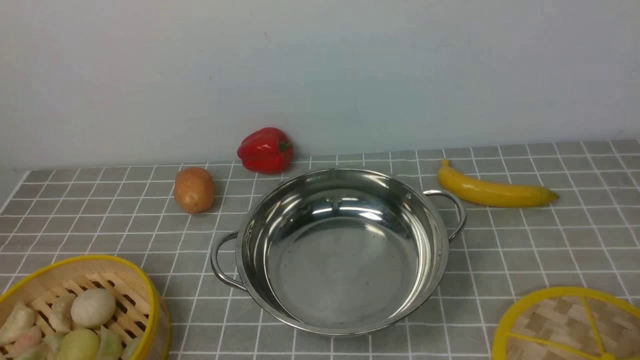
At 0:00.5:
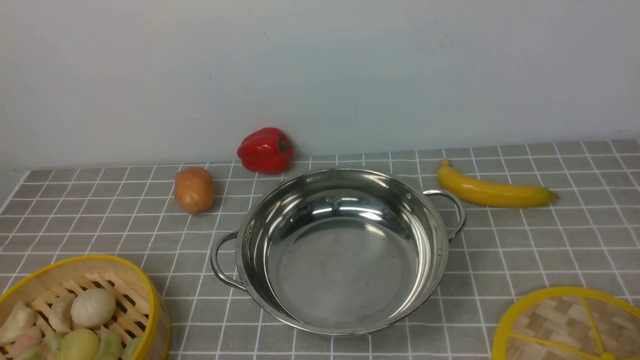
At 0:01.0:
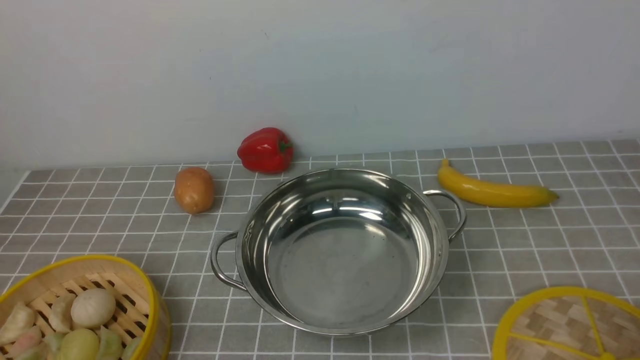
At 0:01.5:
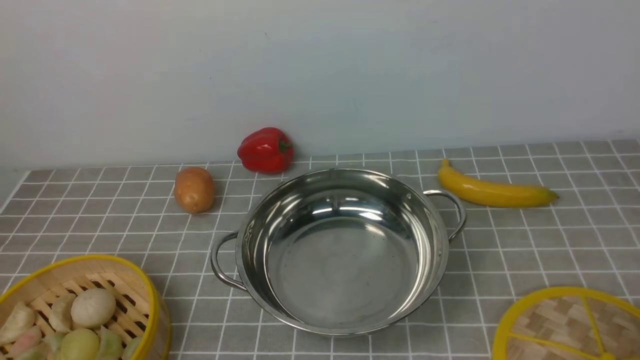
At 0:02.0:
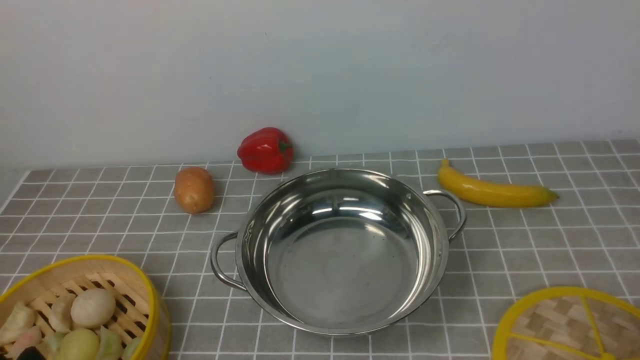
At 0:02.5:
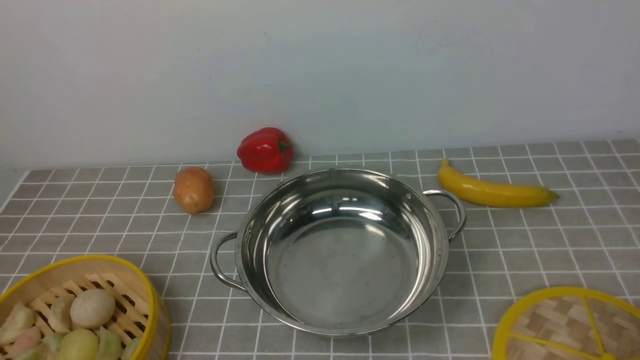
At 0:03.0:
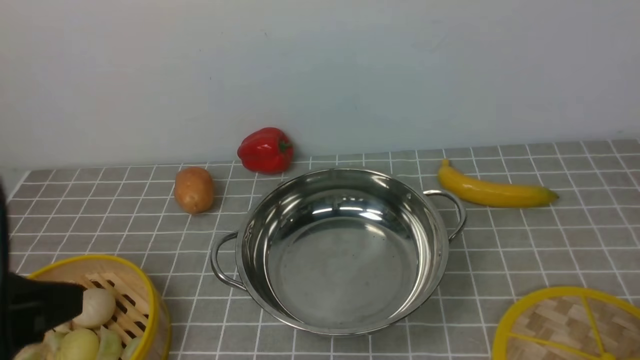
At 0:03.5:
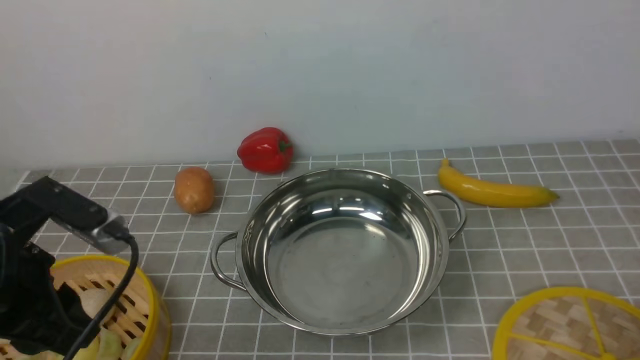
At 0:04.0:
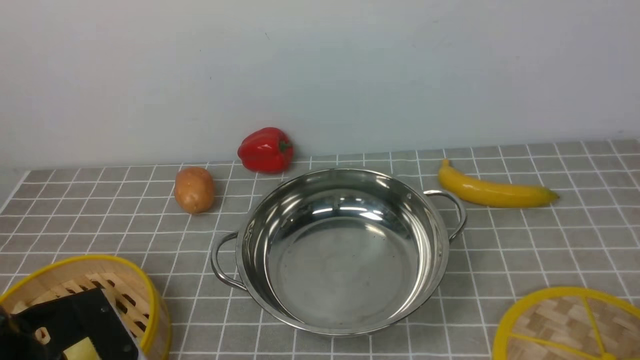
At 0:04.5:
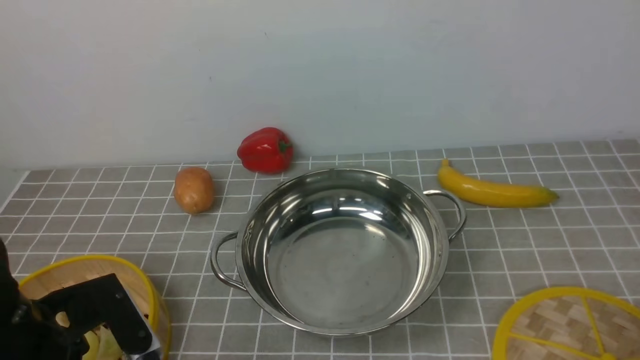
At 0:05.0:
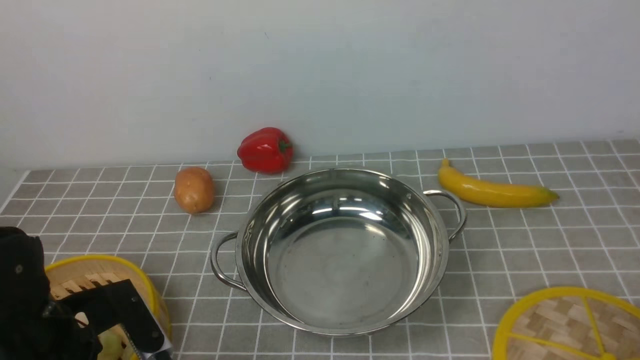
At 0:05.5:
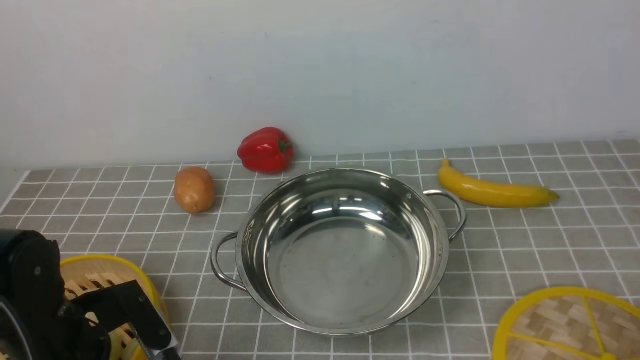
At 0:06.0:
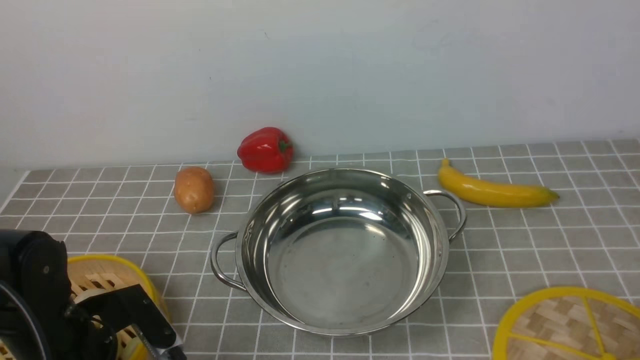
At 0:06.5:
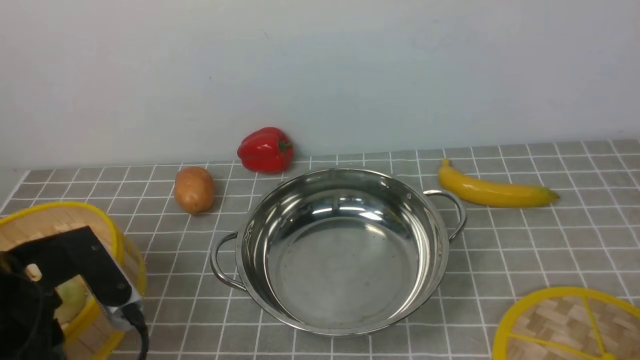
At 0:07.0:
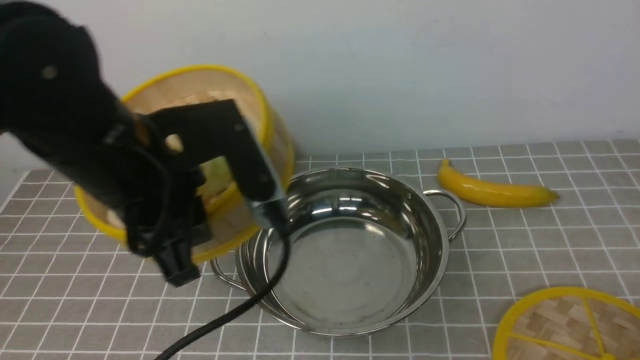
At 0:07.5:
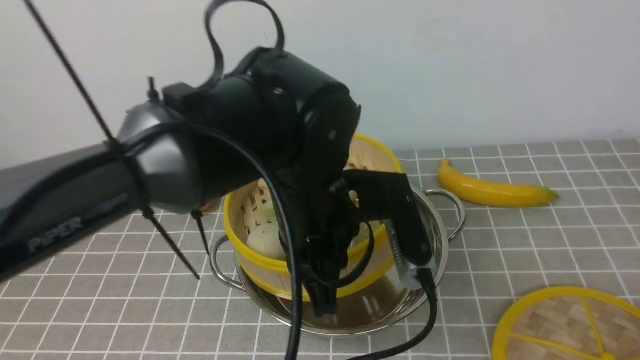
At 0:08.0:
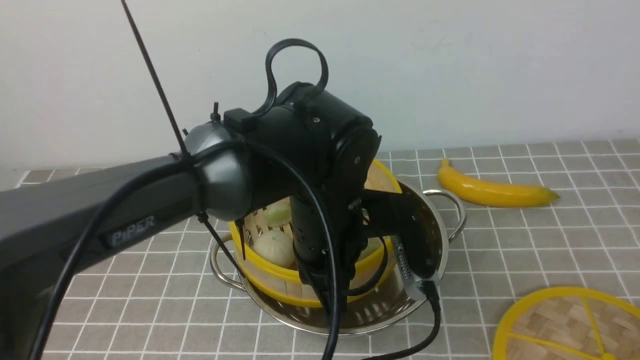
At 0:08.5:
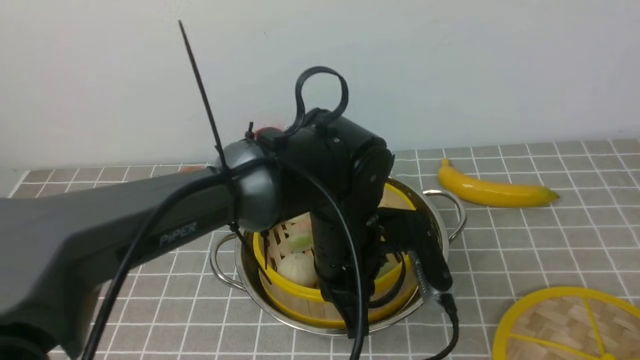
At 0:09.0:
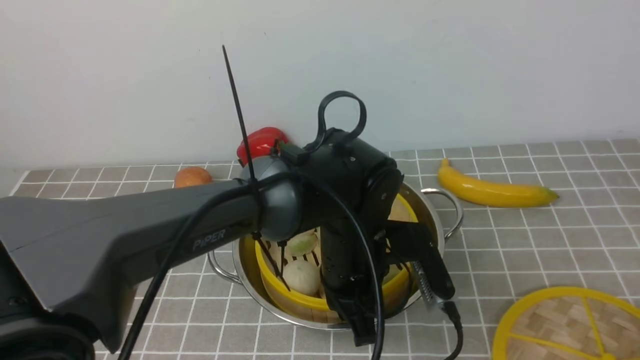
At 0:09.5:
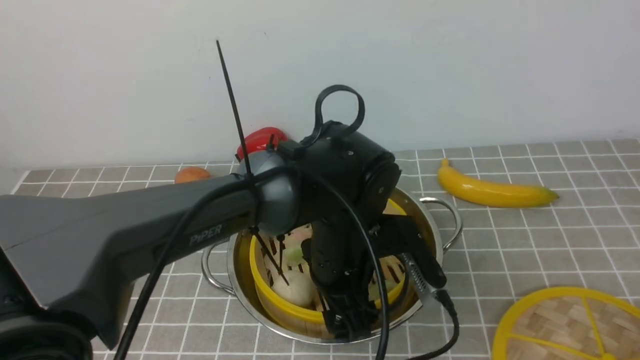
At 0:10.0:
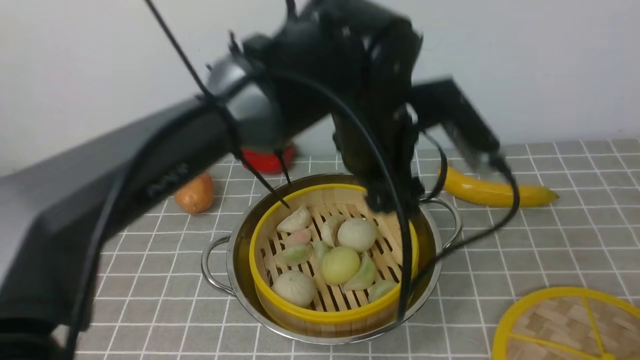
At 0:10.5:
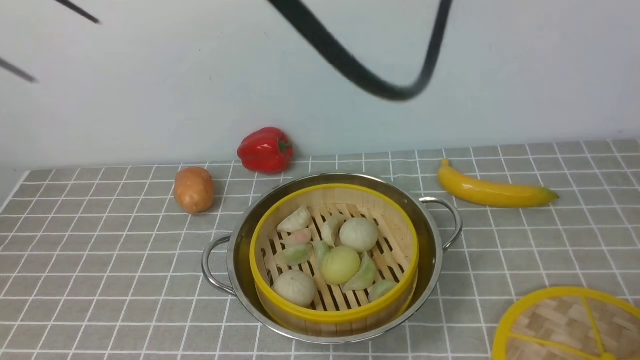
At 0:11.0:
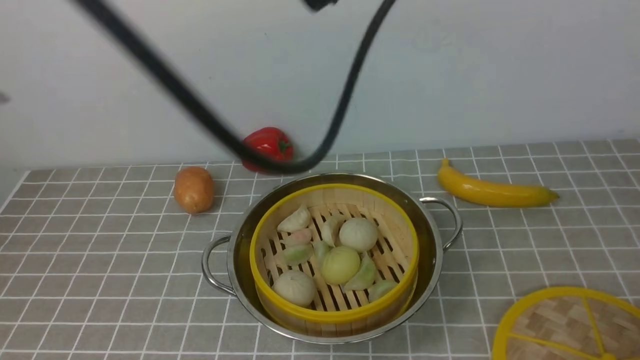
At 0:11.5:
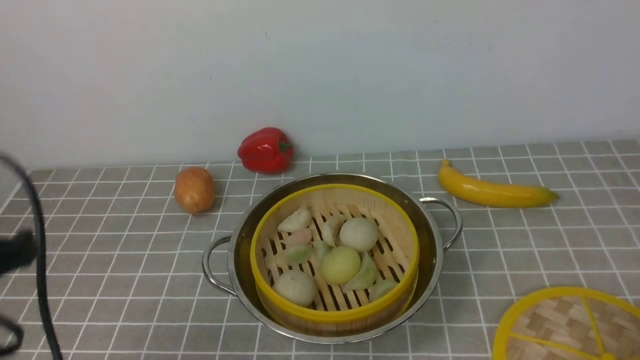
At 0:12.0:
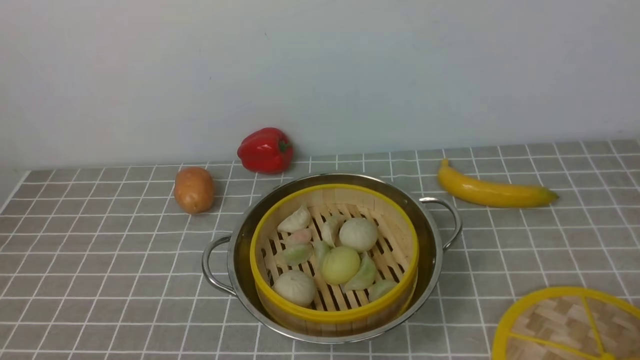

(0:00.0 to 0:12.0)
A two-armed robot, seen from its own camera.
Task of the whole recording: place the steamer in the pot on the grey tablecloth, and put the lid on the steamer.
Step, 0:00.0 - 0:06.0: use the left arm to lift the steamer closest to it.
Step, 0:06.5 - 0:09.5: use the left arm to put the steamer into the iron steamer pot in the middle.
0:02.0 - 0:04.0: The left gripper heads forward, covering roughly 10 cm, and travels upward and back again, roughly 15 cm each way.
0:04.0 - 0:06.0: The left gripper heads downward, covering about 5 cm, and closes up.
0:06.0 - 0:08.0: The left gripper travels to the right by roughly 25 cm.
0:08.0 - 0:10.0: The left gripper moves some 5 cm, and opens up.
0:10.0 - 0:12.0: The left gripper heads to the left and backward, covering some 40 cm, goes upward and returns, about 20 cm each way, and closes its fingers.

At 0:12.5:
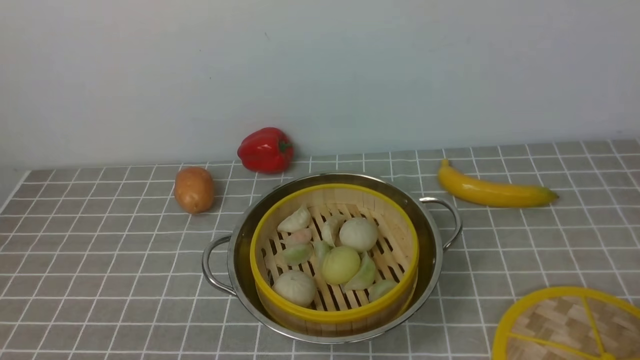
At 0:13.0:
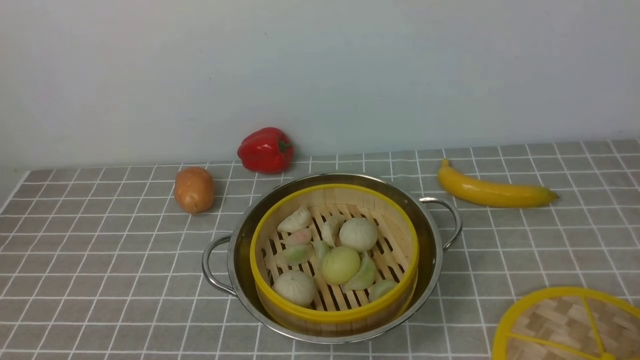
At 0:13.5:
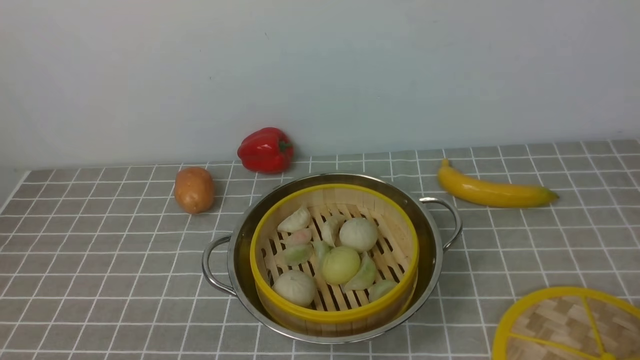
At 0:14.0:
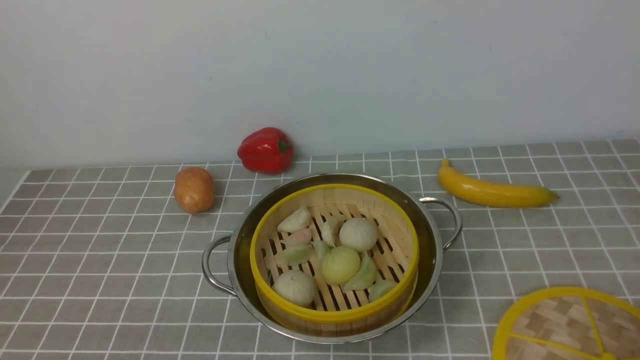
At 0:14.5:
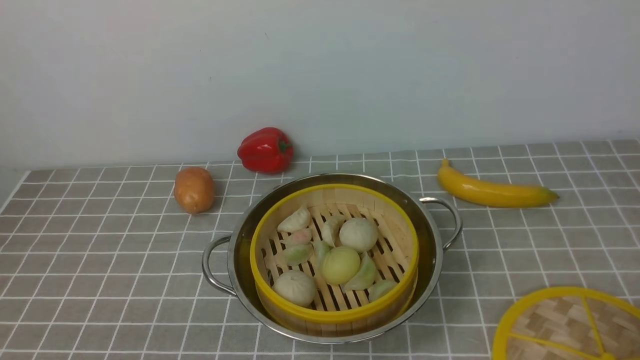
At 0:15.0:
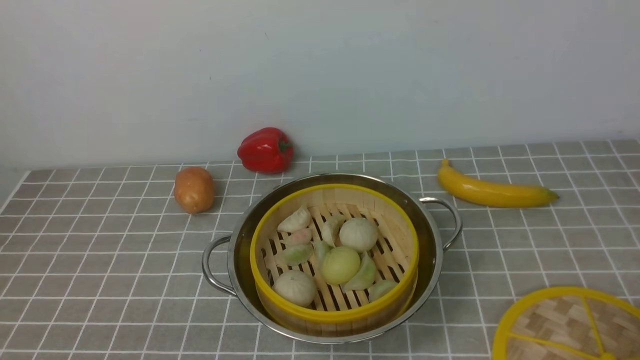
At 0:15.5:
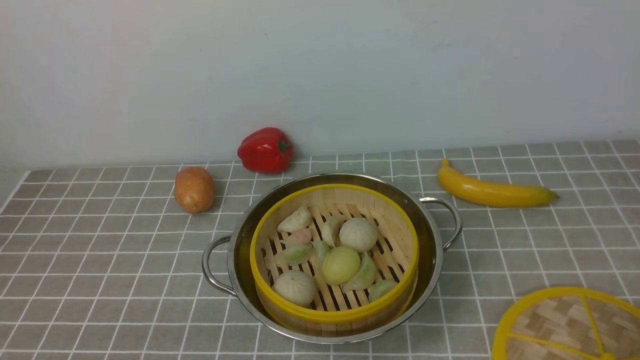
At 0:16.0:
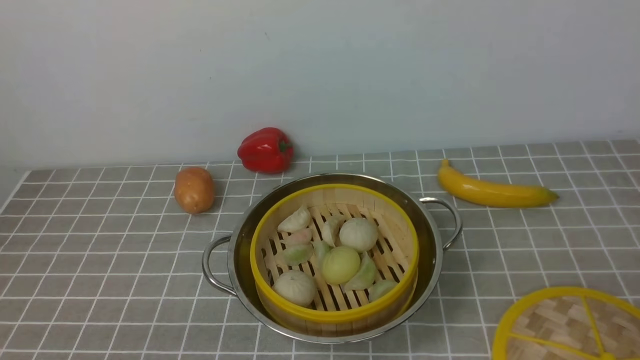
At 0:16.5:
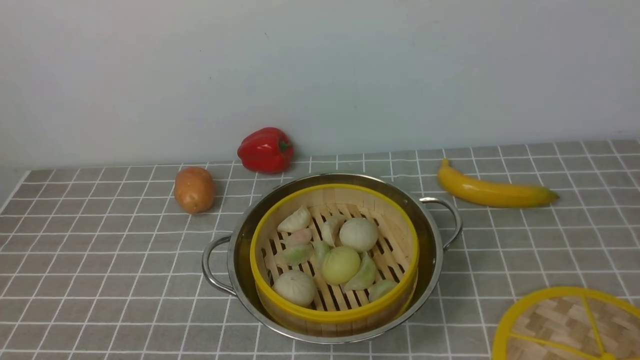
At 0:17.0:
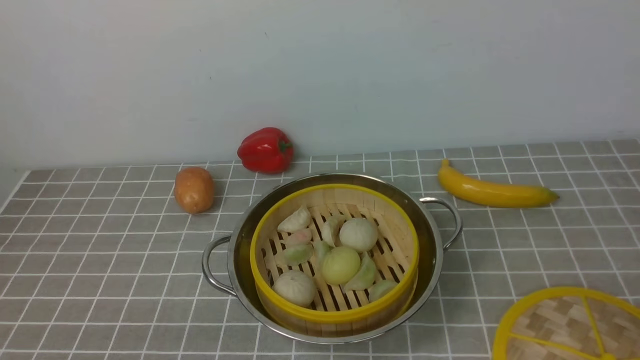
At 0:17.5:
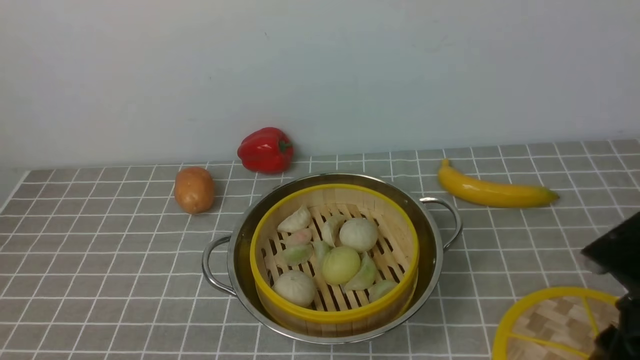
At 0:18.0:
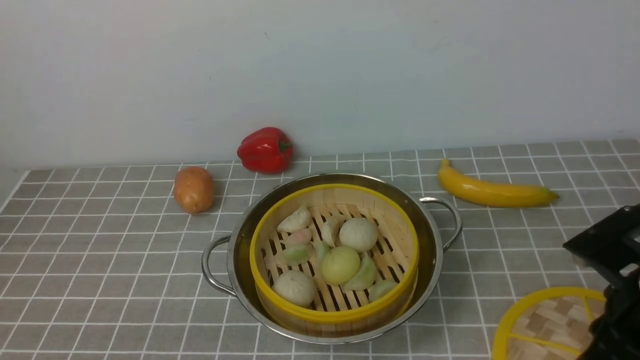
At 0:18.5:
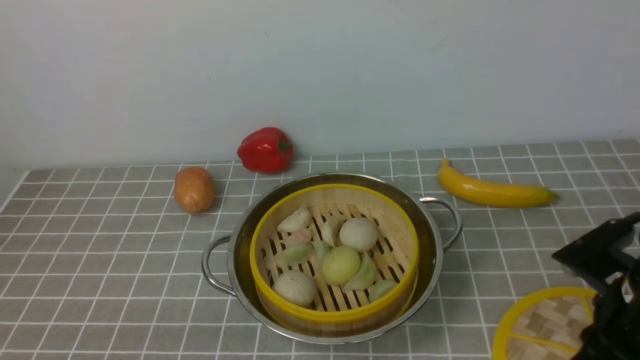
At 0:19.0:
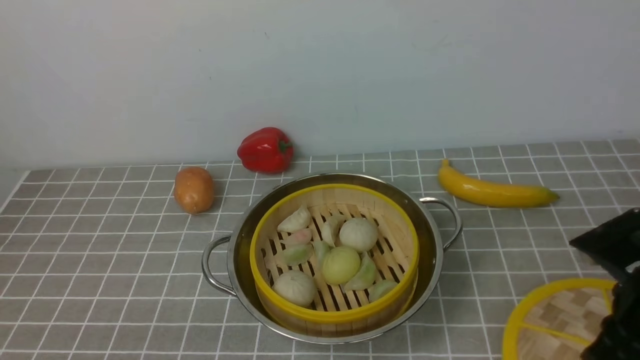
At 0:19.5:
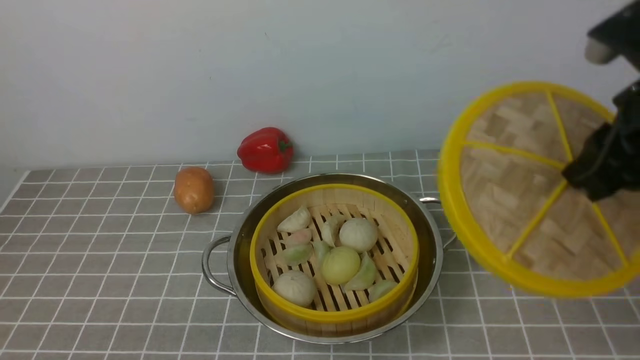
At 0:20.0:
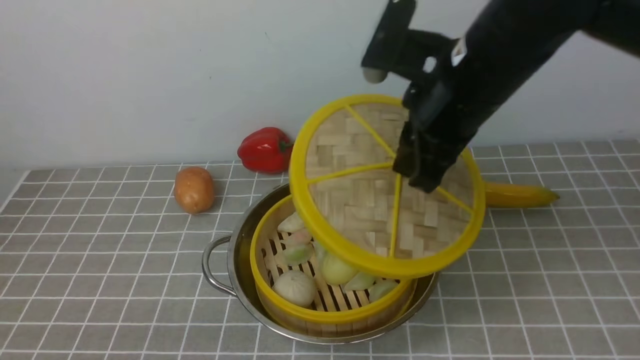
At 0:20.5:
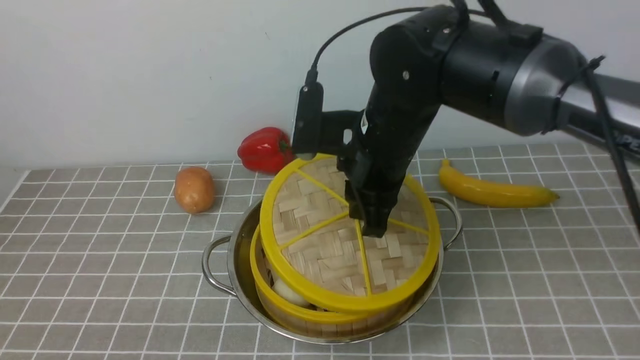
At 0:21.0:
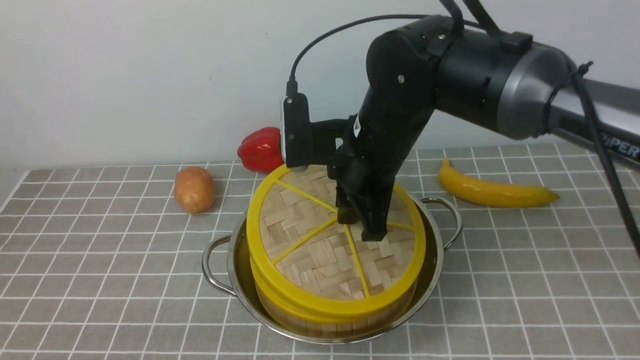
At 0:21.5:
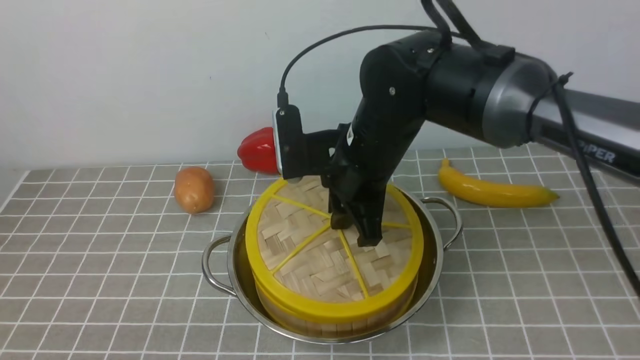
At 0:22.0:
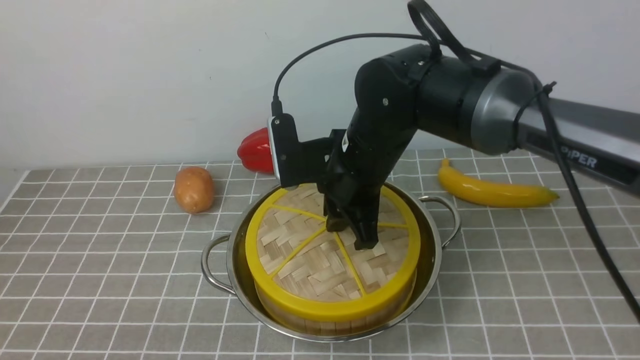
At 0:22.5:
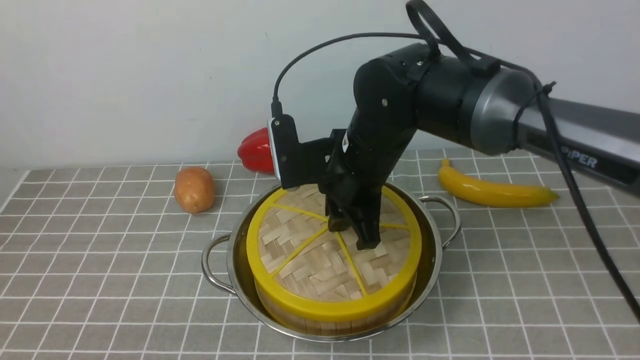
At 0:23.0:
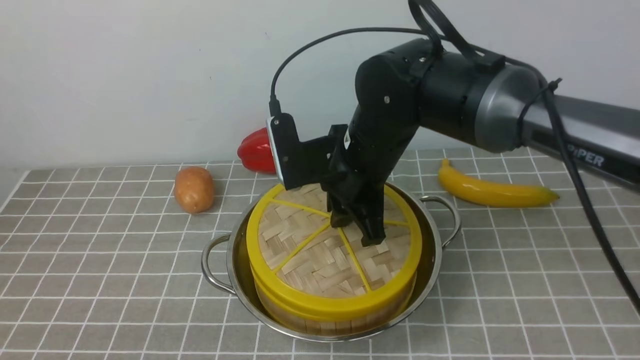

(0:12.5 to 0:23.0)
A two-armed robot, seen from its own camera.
Task of the whole recording: place the steamer in the pot on the grey tablecloth, and put the lid on the steamer.
Step, 0:12.5 - 0:19.0: use the right arm to lift the lid of the steamer.
0:12.5 - 0:14.5: The two grippers keep their place.
0:16.5 - 0:19.0: The right gripper moves forward and downward, about 15 cm.
0:19.0 - 0:21.0: The right gripper moves to the left and forward, approximately 25 cm.
0:21.0 - 0:23.0: The grippers stay close to where they were, moving slightly.
